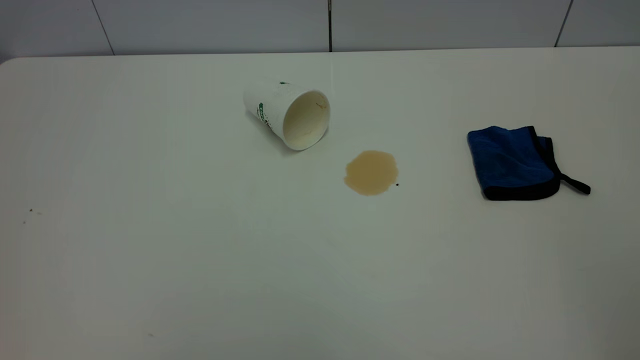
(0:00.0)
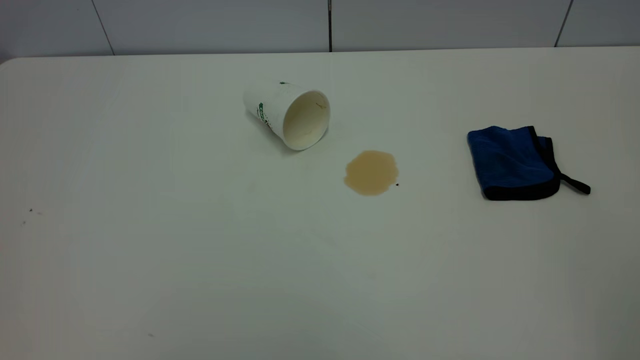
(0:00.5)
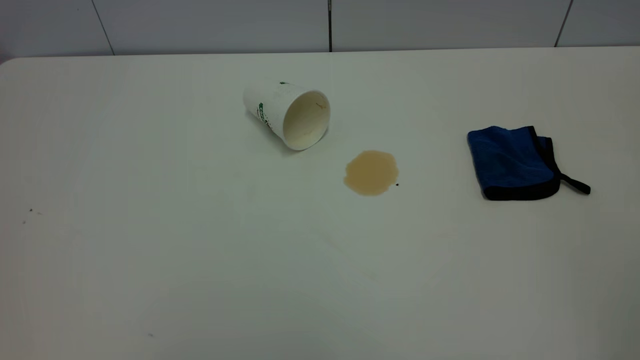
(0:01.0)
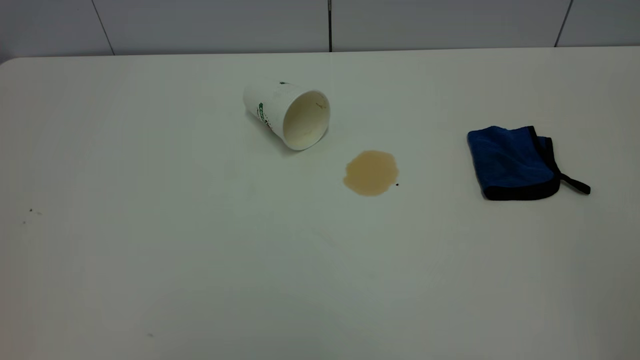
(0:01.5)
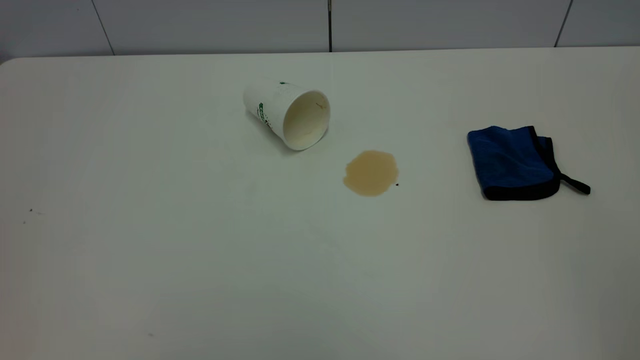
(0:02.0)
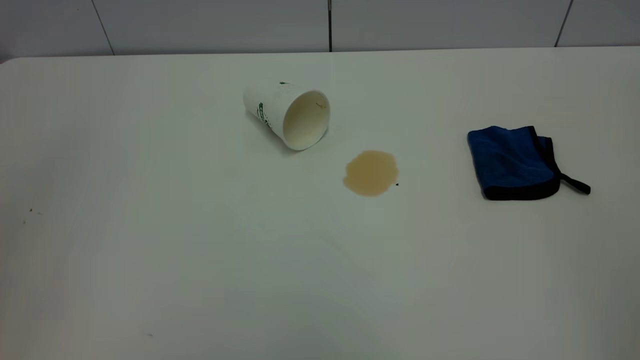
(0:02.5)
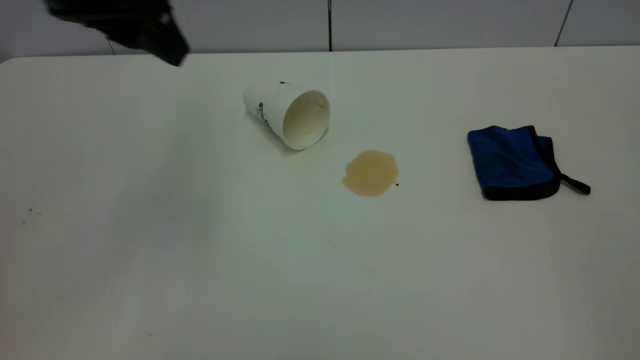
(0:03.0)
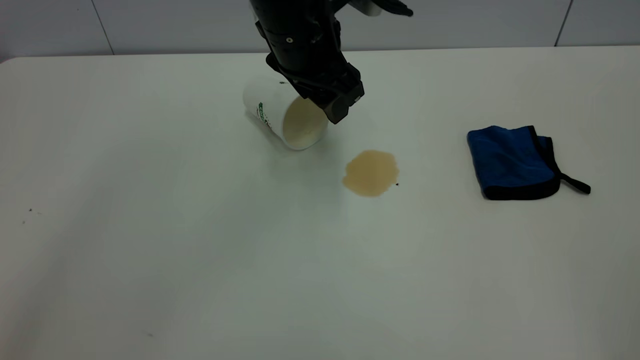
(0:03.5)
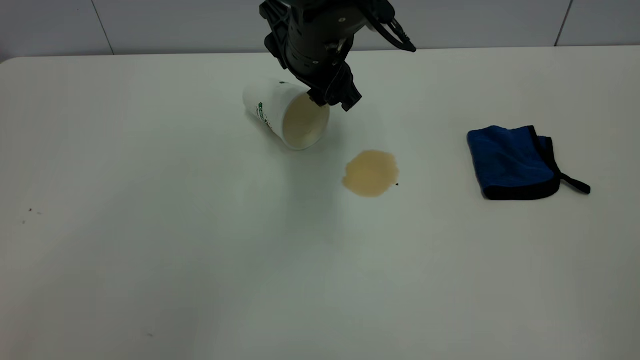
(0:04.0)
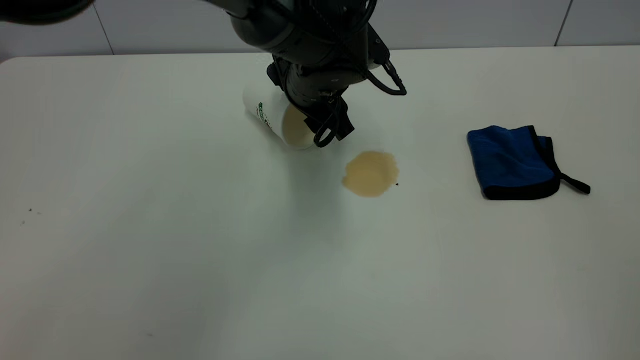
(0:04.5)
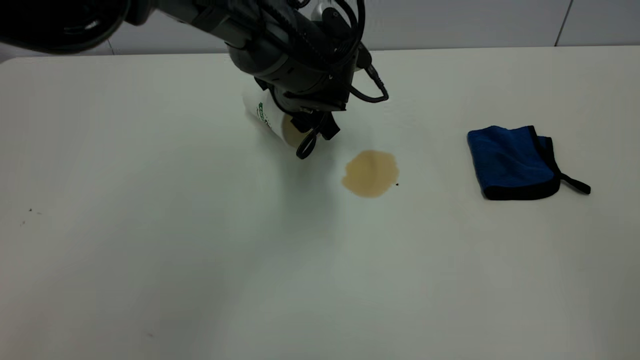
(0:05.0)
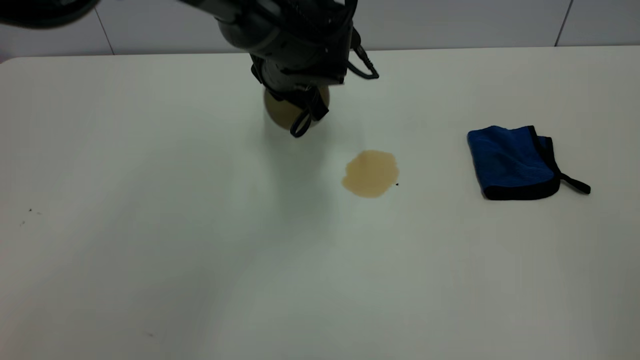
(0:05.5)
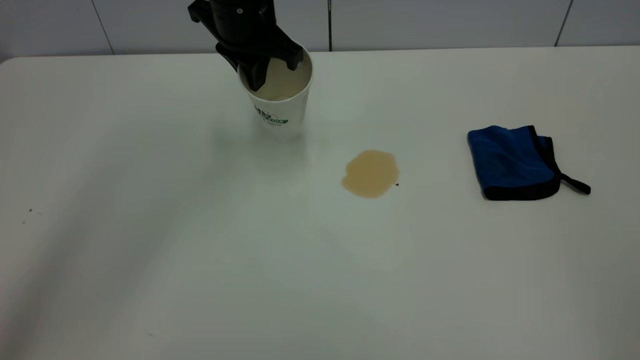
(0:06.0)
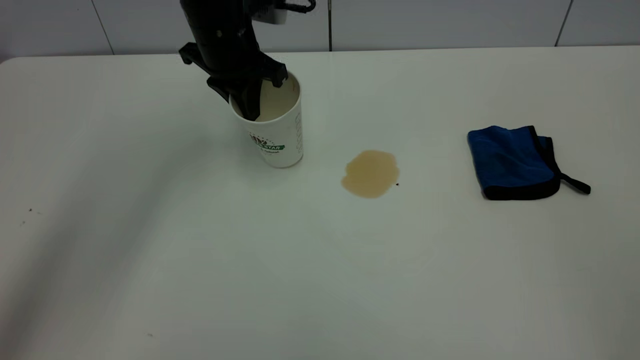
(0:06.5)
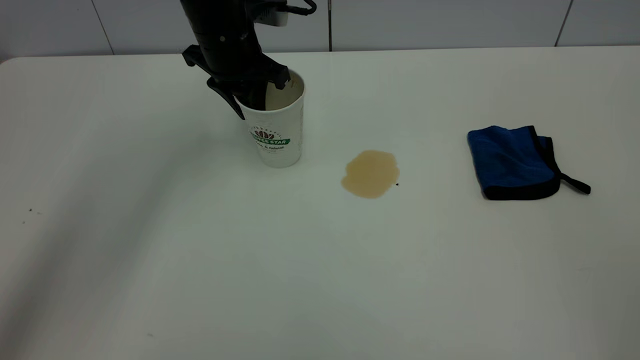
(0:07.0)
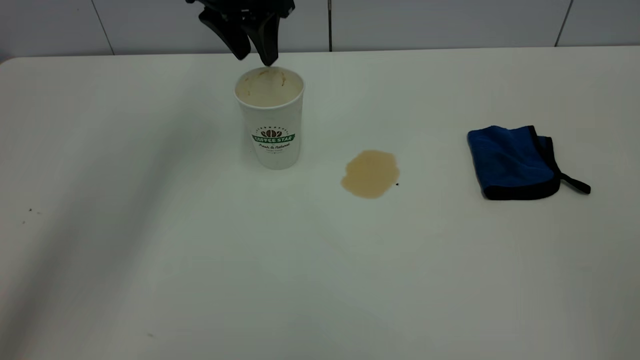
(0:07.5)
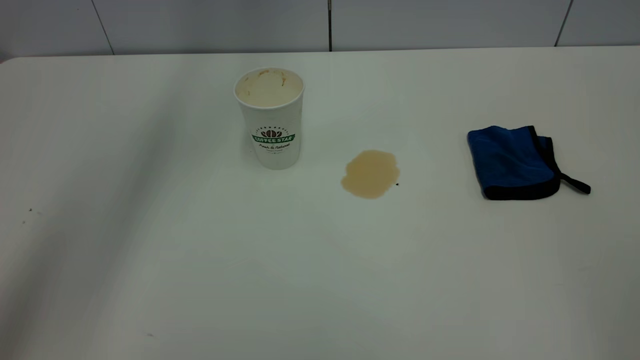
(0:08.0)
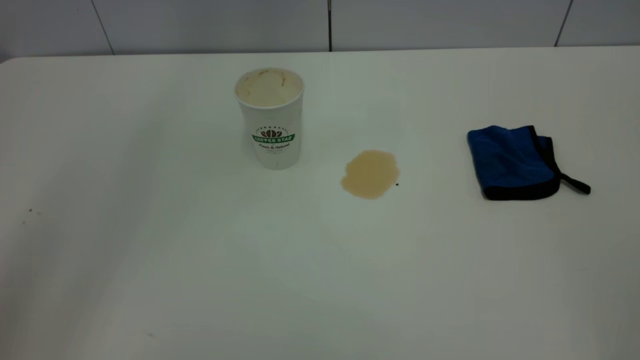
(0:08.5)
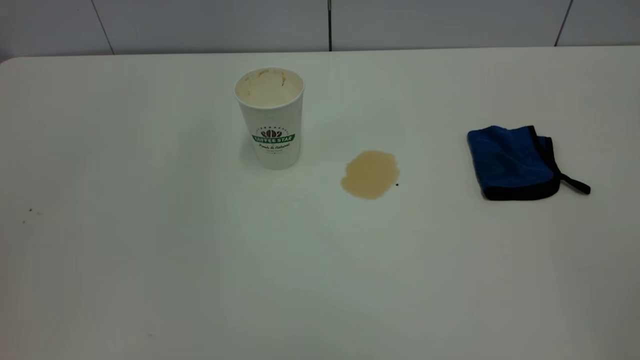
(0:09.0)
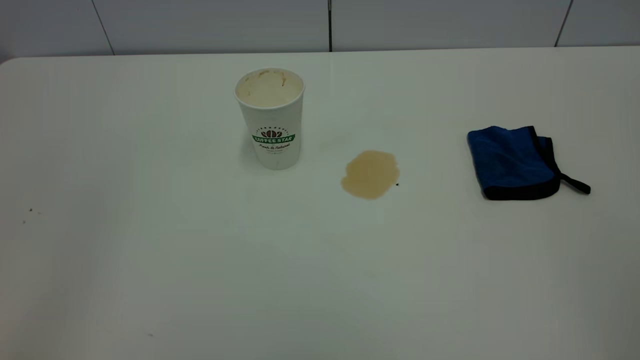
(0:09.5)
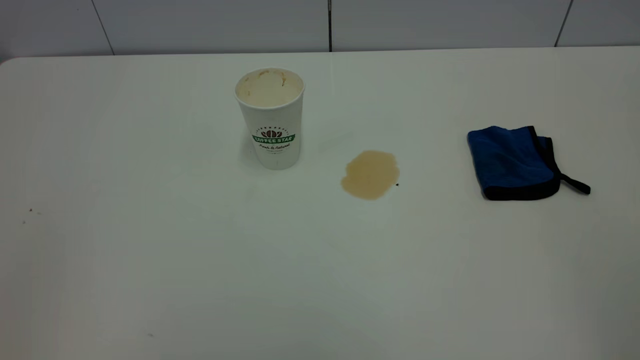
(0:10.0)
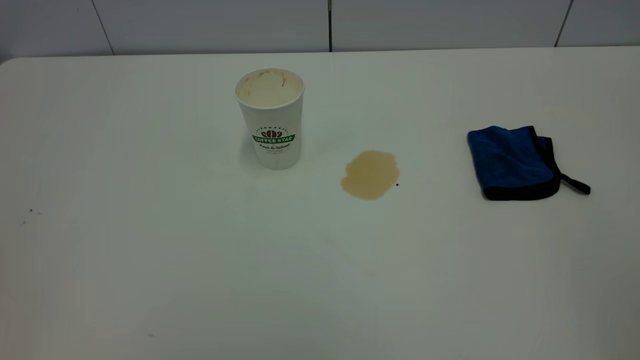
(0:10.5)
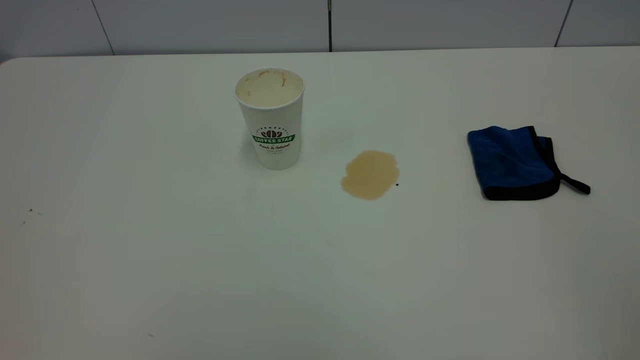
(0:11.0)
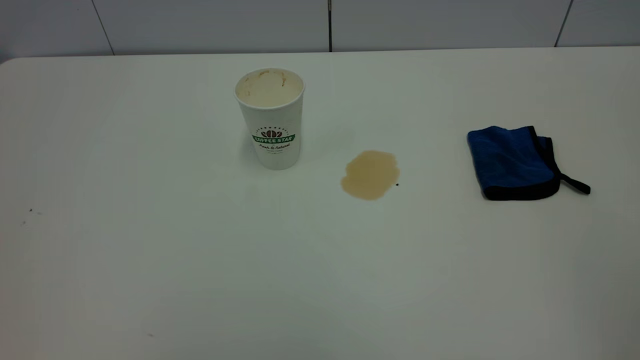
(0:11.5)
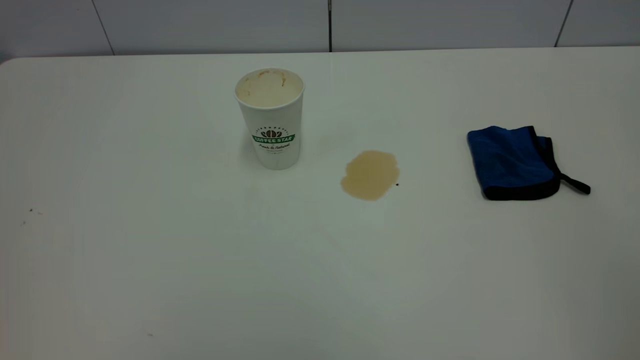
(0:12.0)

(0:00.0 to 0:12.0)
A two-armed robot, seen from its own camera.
Task of the whole recording: the left gripper pick up the fallen cup and place it upright, the right gripper grasp the blue rag and wipe the tea stain on the table, the right gripper put the blue rag back in its original position.
Step, 0:00.0 - 0:07.0: Stand the paper cup upright.
0:02.0 - 0:04.0: The left gripper heads forward, to the right and downward, covering about 60 cm.
0:04.0 - 0:06.0: The left gripper travels to the left and forward by about 10 cm, and closes.
0:06.0 - 0:08.0: The left gripper goes about 20 cm upward, and opens its fingers.
0:08.0 - 0:10.0: The left gripper goes roughly 50 cm backward and to the left.

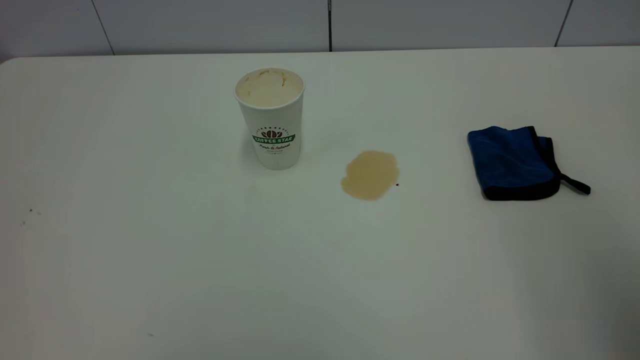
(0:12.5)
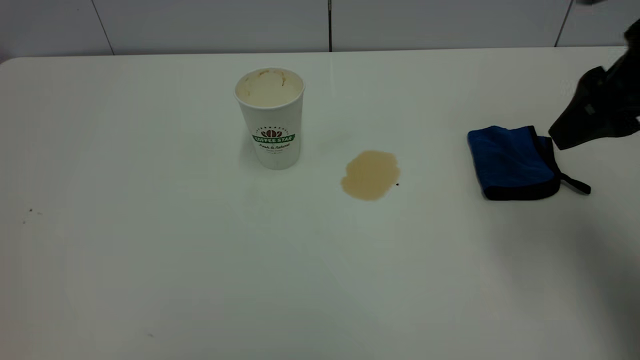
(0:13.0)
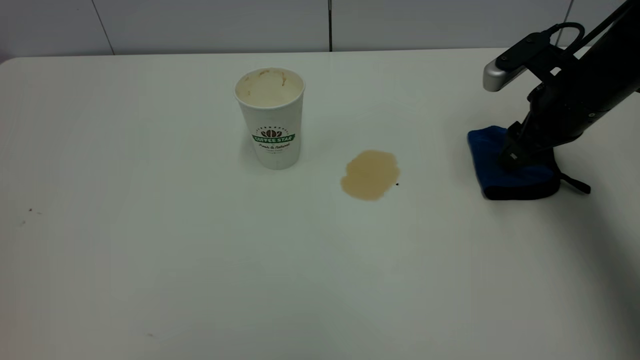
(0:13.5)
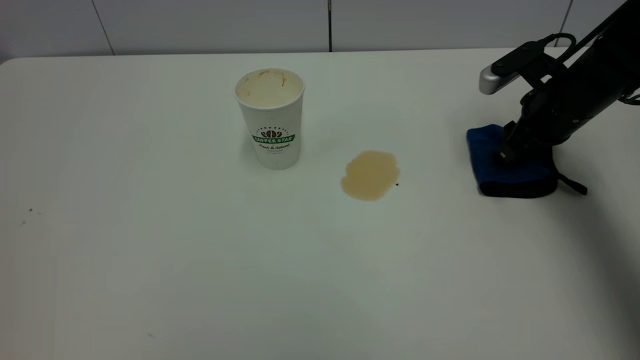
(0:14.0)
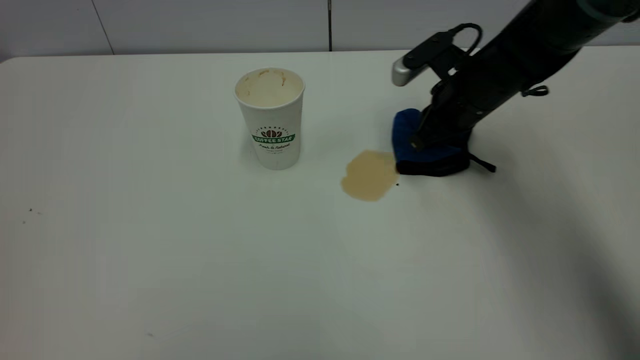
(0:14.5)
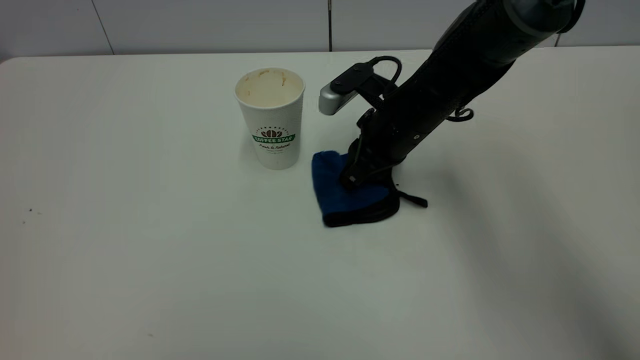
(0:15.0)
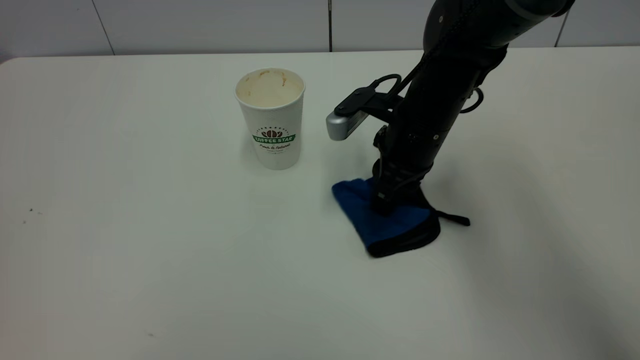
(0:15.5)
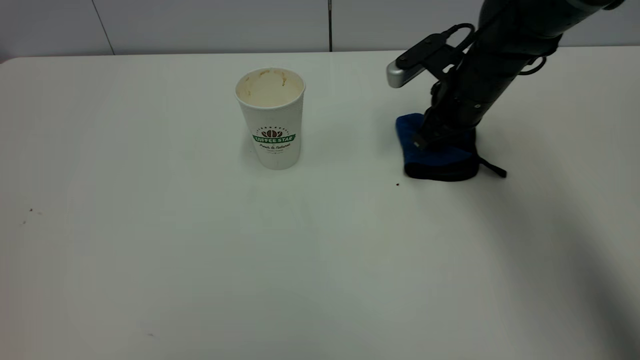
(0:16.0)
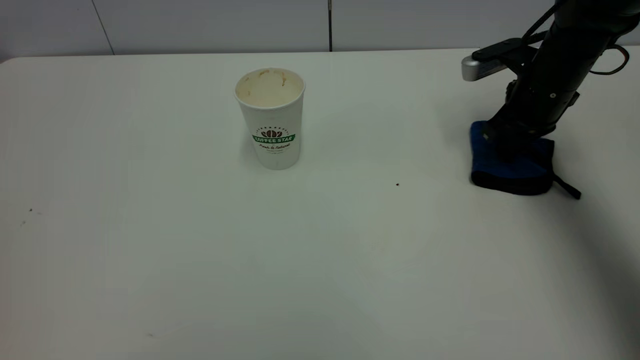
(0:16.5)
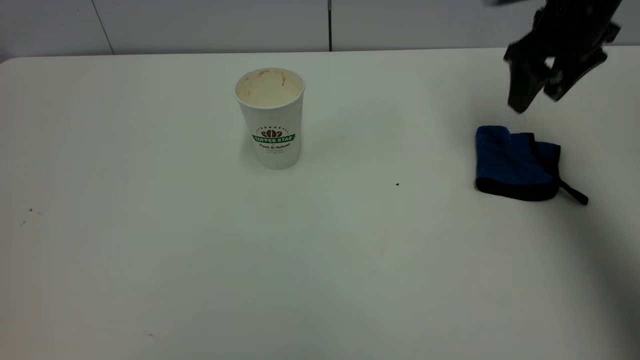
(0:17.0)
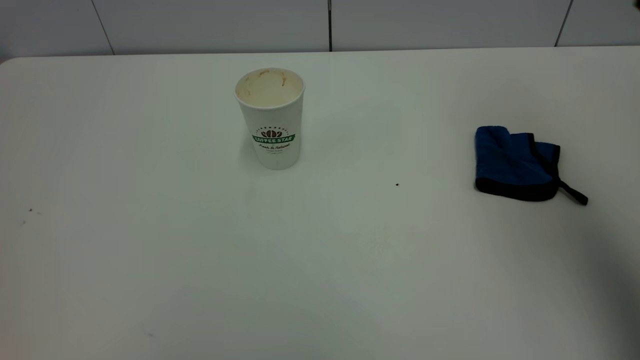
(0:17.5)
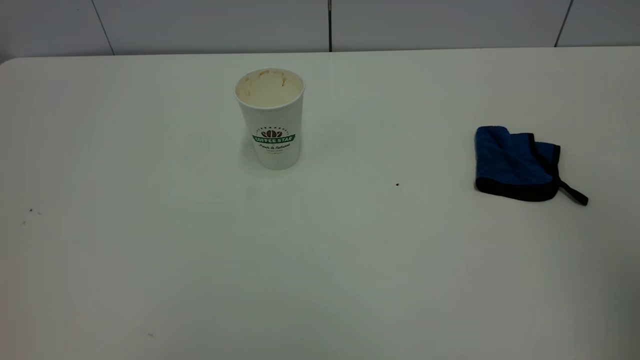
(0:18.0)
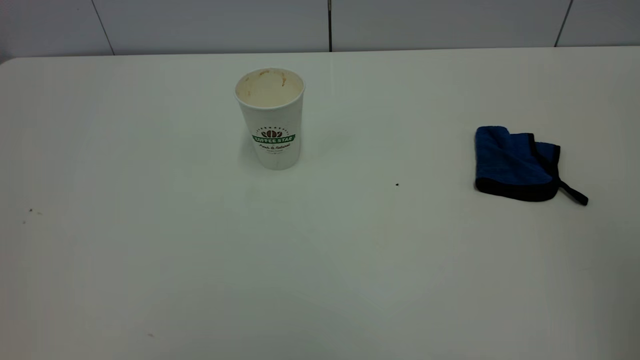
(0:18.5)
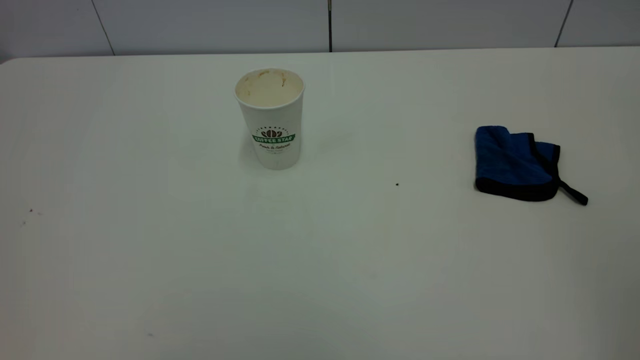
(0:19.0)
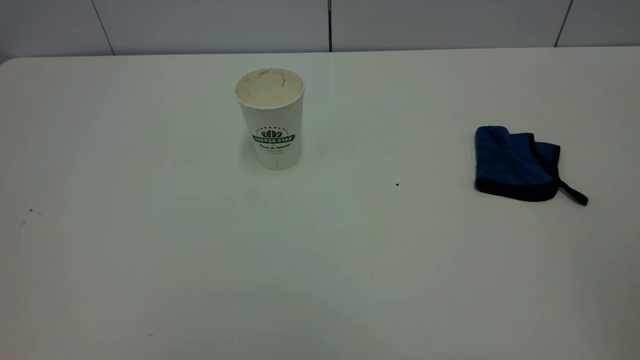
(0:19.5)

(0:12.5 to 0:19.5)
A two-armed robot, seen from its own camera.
Task of the whole recording: the left gripper pick up the fallen cup and place it upright, the right gripper grasp the blue rag and wipe the tea stain on the table, the right gripper put the blue rag back in its original position.
Step, 0:12.5 - 0:17.0: Wipe the stains off the table with a rag.
0:12.5 - 0:14.5: The right gripper shifts approximately 40 cm forward and downward, and closes up.
0:14.5 - 0:16.0: The right gripper moves approximately 10 cm to the left and comes back.
0:16.0 - 0:17.5: The right gripper travels upward and backward by some 35 cm, and opens.
0:17.5 - 0:19.5: The right gripper goes some 30 cm backward.

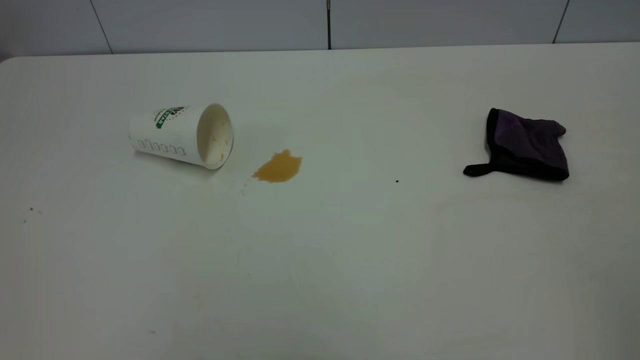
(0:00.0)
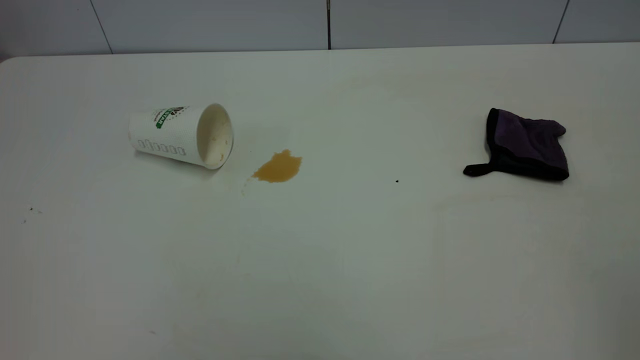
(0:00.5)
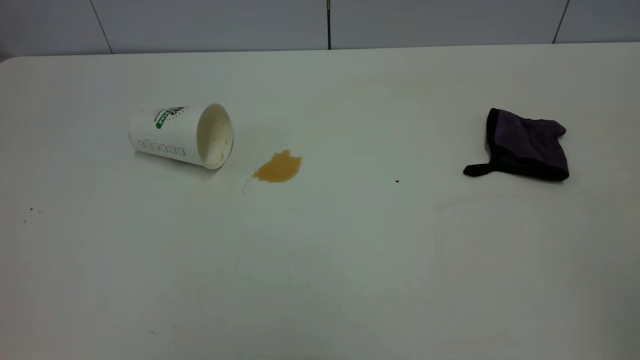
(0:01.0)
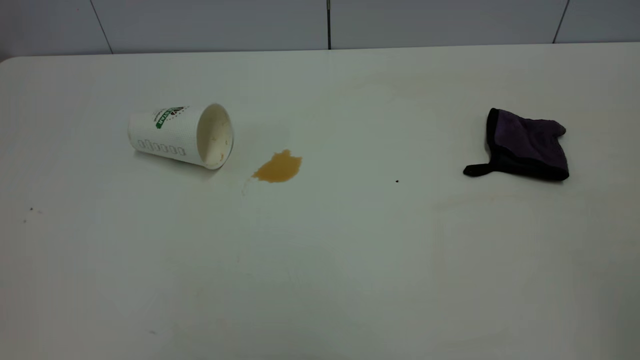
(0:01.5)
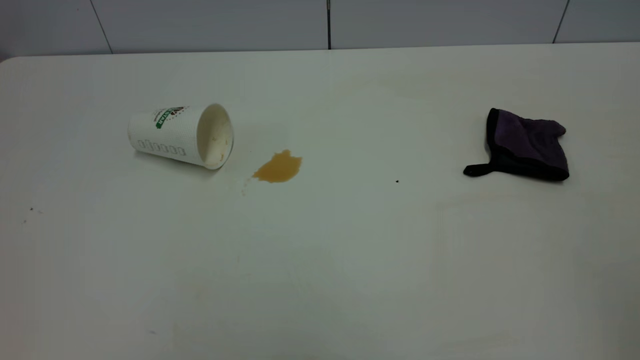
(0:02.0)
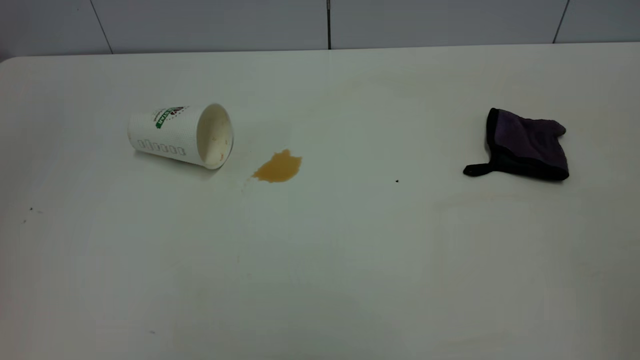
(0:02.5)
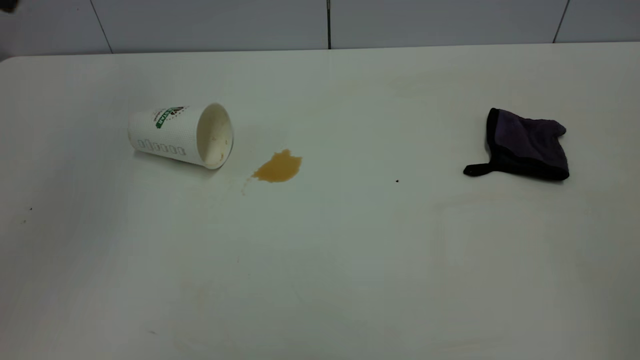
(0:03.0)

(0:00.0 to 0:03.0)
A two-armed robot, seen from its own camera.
Task of the whole recording: the left gripper pick up the fallen cup and place it upright, the right gripper grasp the purple rag and wipe the tea stain on the table, the right gripper put the purple rag back in its original position.
0:00.0 - 0:01.5: Both grippers stay about where they are.
